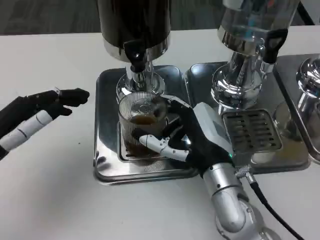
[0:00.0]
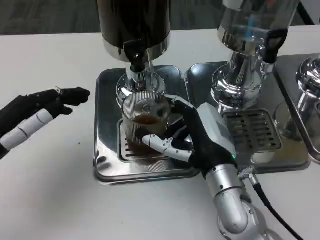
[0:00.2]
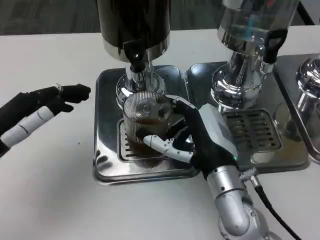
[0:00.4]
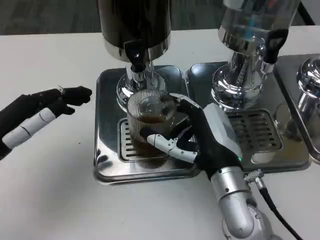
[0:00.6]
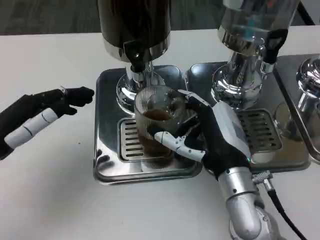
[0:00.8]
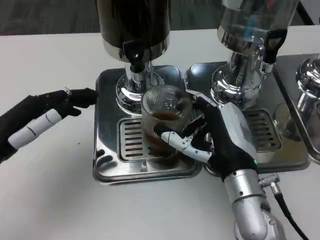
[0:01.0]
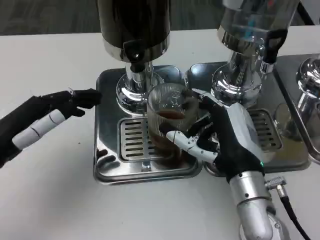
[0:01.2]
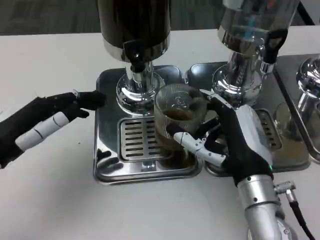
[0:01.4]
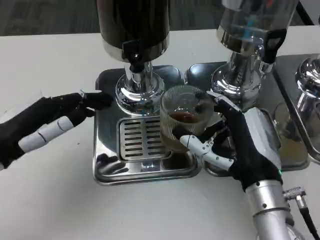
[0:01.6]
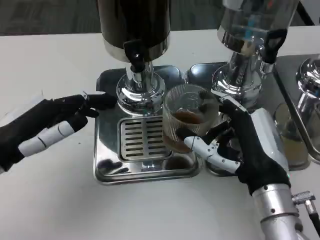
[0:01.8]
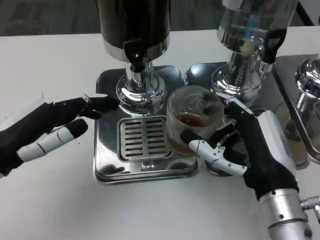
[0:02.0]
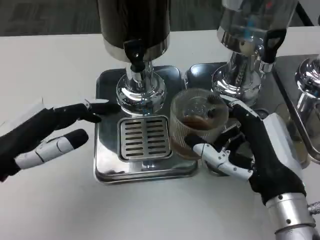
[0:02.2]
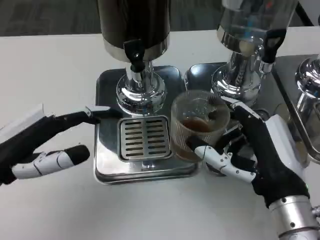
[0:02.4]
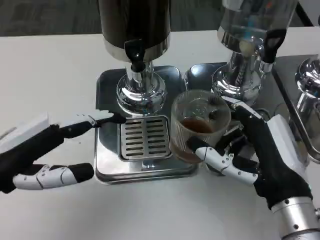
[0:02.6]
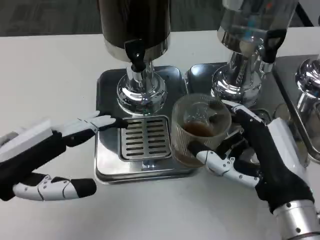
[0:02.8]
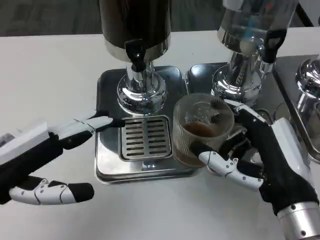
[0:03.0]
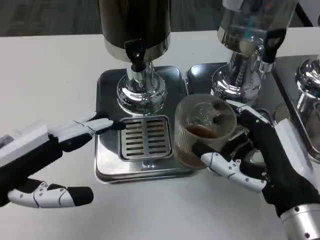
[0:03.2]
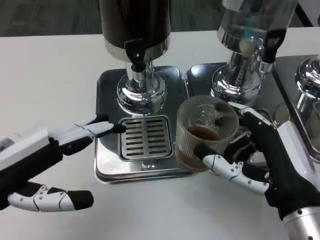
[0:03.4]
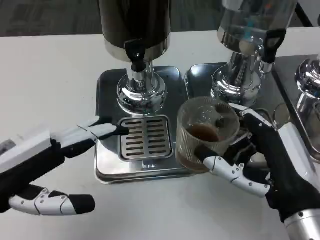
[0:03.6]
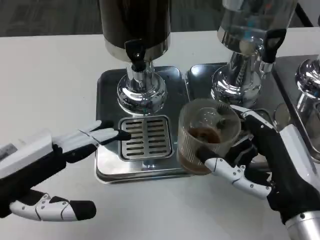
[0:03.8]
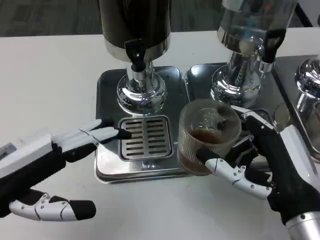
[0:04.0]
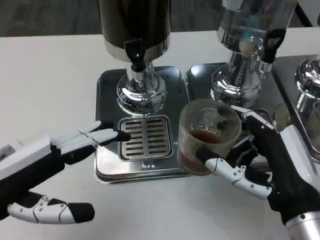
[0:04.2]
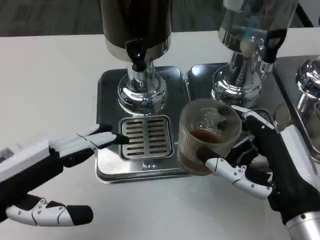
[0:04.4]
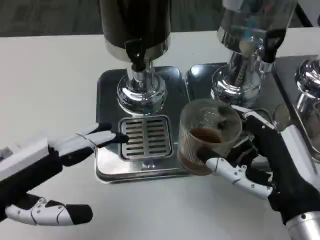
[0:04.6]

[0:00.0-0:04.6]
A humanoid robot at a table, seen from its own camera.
Task of the whole recording: Grasp the cup under the faucet to collect the drink, then remove the cup.
0.0 to 1.6 s: The right hand changes place by roughly 5 cm.
1.6 to 3.0 s: The right hand ends up some 5 cm from where it was; the left hand heads backward, covering about 5 cm.
3.0 to 4.6 s: The hands stay close to where they were, moving slightly.

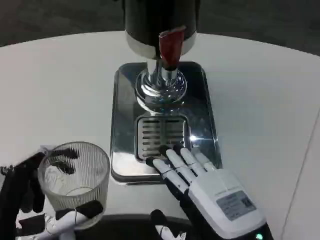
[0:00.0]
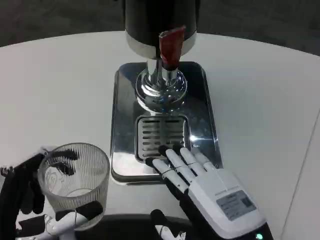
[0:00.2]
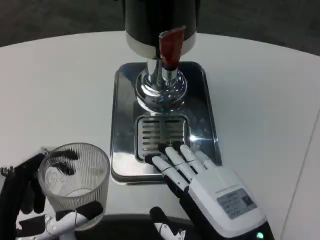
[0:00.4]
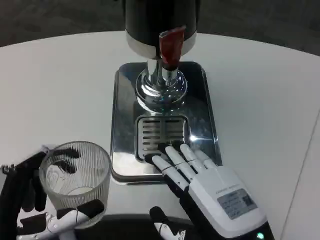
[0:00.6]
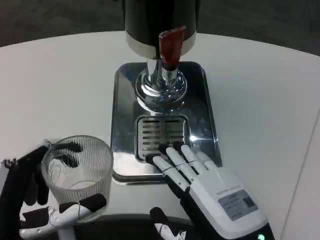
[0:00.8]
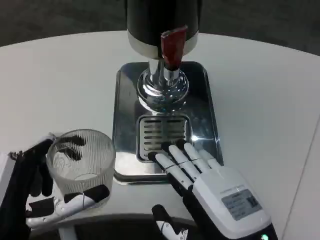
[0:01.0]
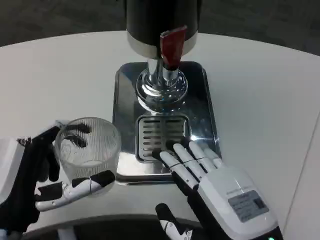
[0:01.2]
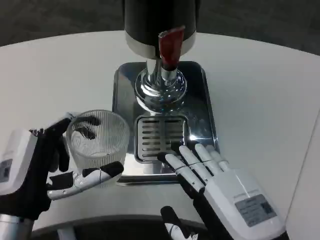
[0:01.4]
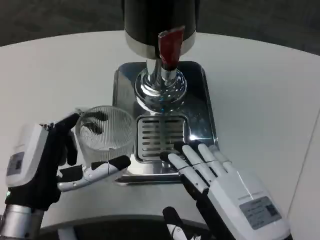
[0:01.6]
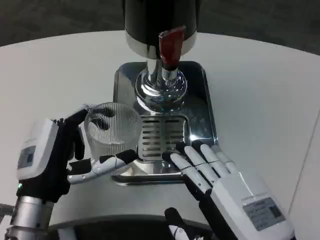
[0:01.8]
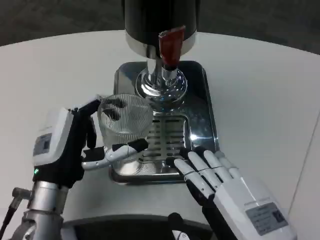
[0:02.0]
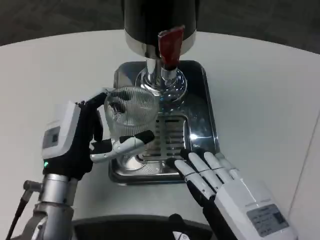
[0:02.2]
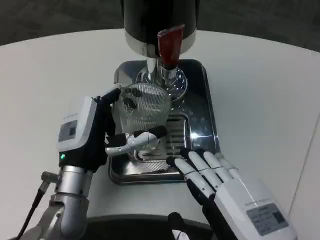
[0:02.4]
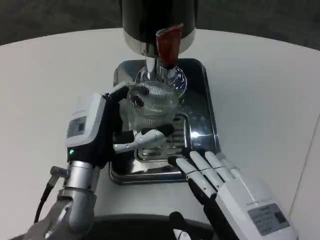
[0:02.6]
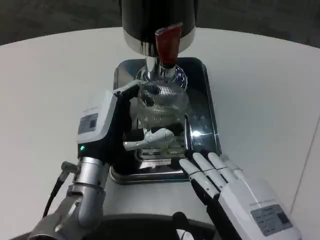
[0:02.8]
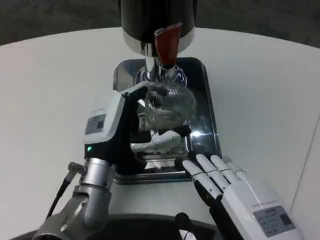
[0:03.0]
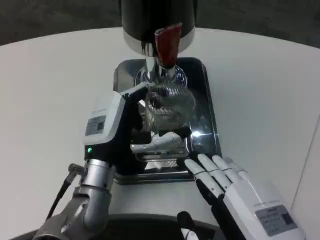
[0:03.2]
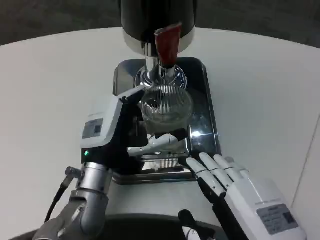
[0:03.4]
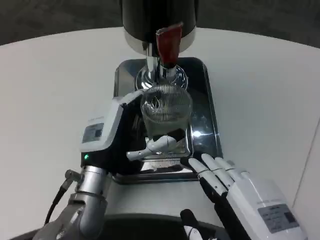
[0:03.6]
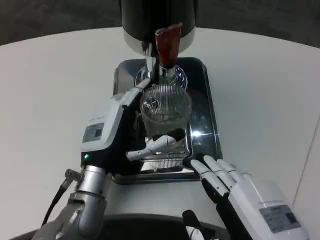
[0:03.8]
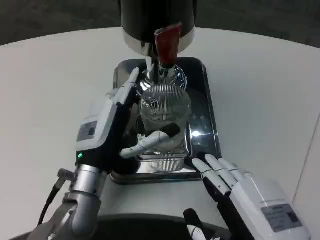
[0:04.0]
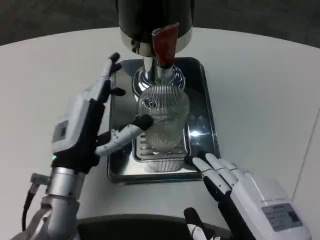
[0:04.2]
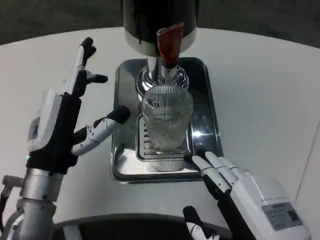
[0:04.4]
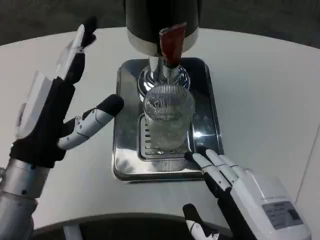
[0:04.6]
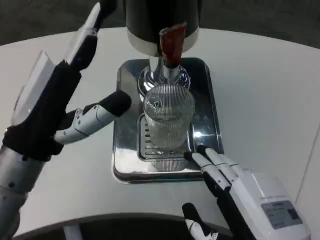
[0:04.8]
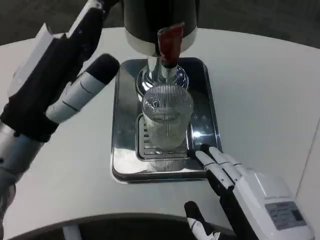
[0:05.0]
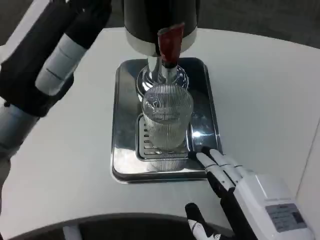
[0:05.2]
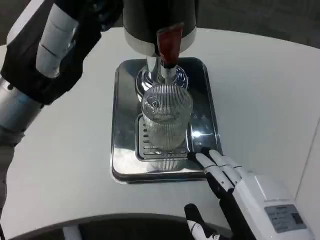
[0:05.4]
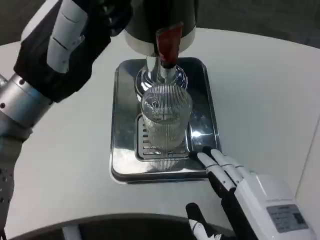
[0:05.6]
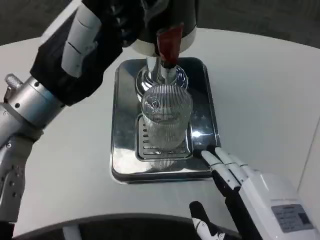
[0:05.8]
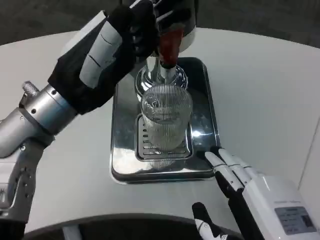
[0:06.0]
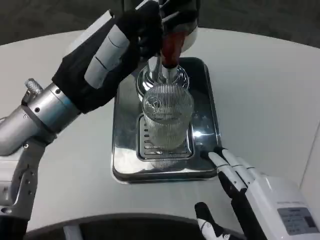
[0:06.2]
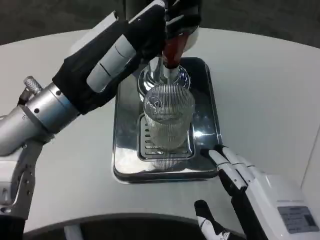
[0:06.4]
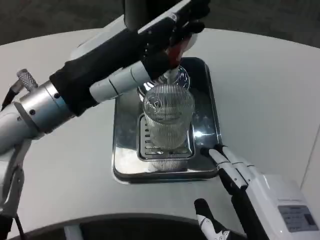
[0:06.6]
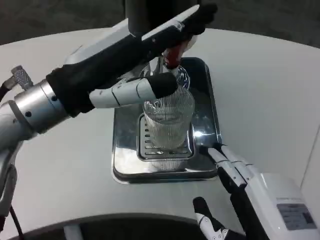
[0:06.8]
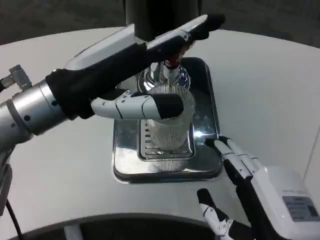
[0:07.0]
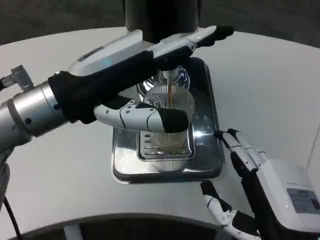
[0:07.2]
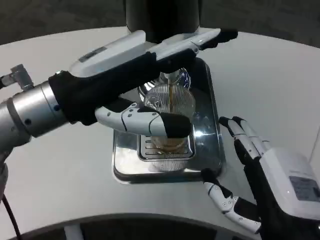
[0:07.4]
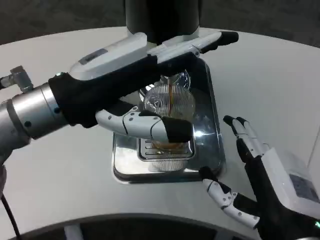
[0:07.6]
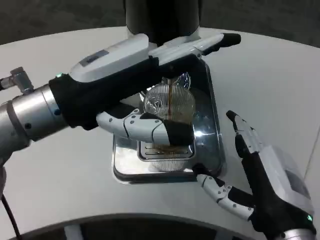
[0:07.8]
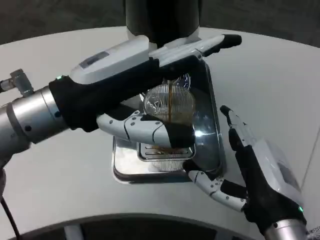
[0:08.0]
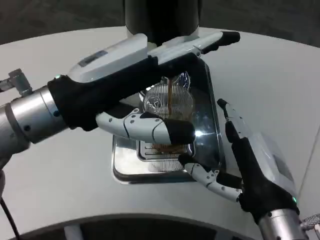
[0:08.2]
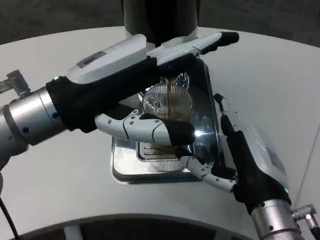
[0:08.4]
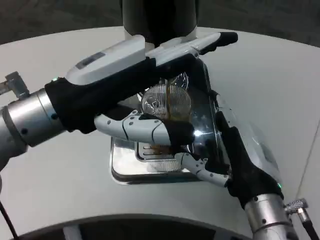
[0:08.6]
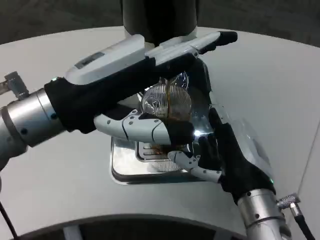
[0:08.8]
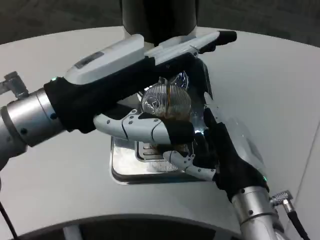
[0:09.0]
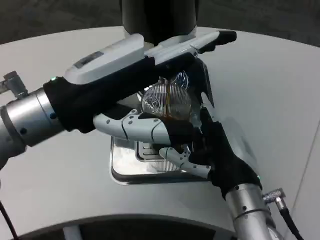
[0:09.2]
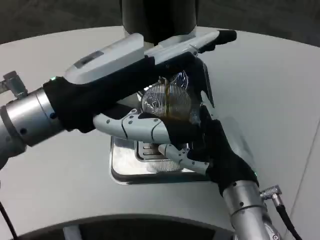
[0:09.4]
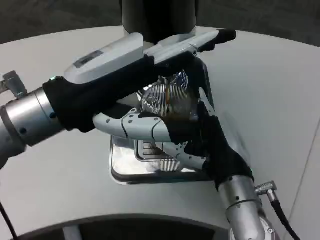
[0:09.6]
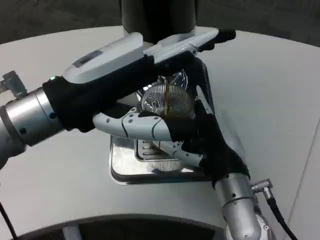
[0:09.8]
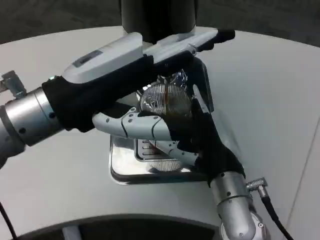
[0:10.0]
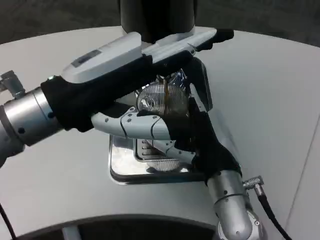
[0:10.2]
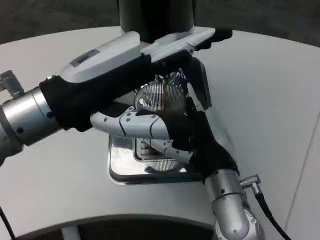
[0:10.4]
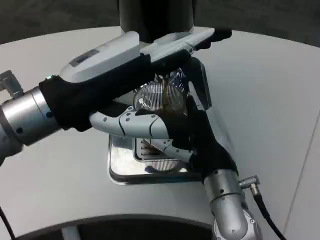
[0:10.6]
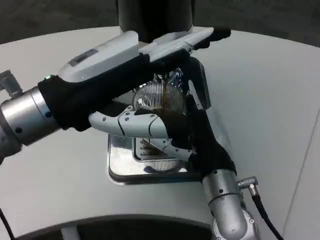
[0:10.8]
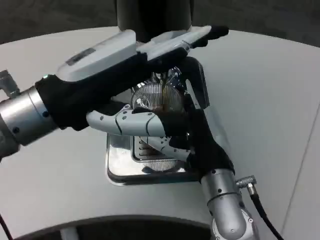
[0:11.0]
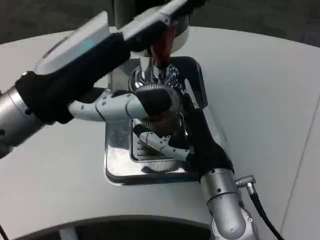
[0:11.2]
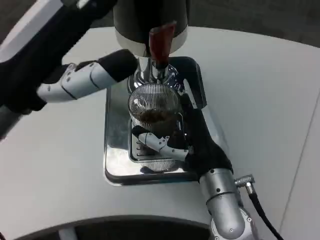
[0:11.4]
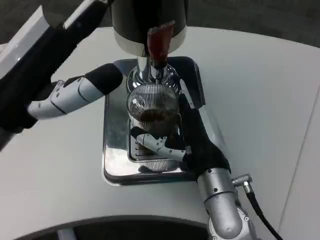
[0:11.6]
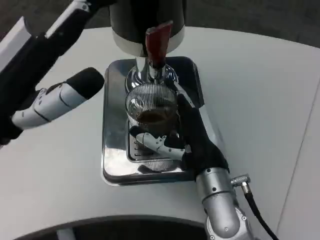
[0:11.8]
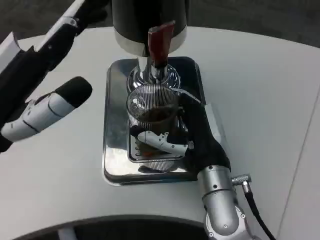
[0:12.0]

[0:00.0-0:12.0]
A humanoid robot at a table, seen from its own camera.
Task of the whole recording: Grasp the cup under the faucet to collect the drink, then remove the cup.
0.0 to 1.6 s: The left hand heads forward, covering some 10 cm.
1.6 to 3.0 s: The left hand is displaced to the right and forward by about 10 cm.
3.0 to 4.4 s: The left hand shifts about 5 cm to the left.
4.4 to 6.0 s: The left hand shifts about 10 cm upward.
7.6 to 9.0 s: The right hand travels forward by some 5 cm.
10.4 to 12.0 s: The left hand goes roughly 5 cm to the left.

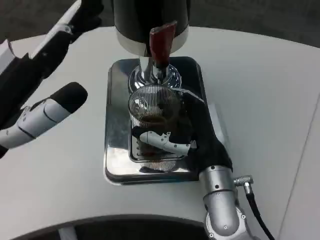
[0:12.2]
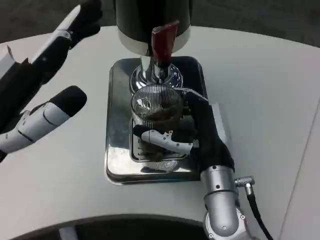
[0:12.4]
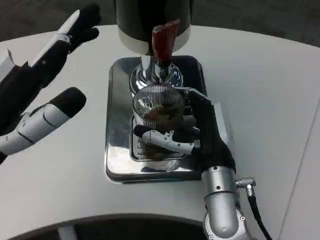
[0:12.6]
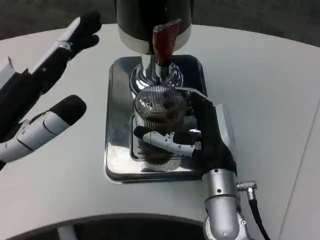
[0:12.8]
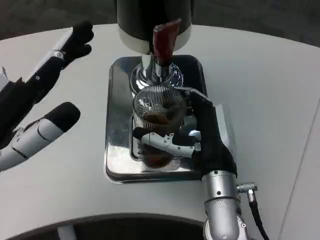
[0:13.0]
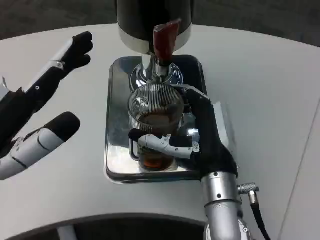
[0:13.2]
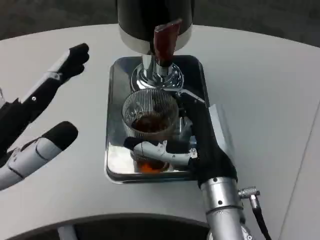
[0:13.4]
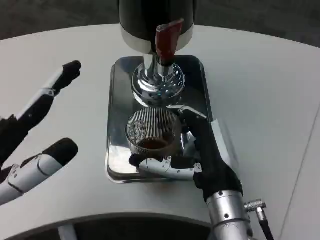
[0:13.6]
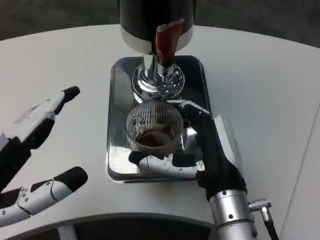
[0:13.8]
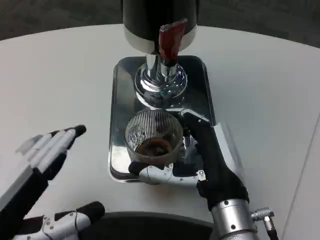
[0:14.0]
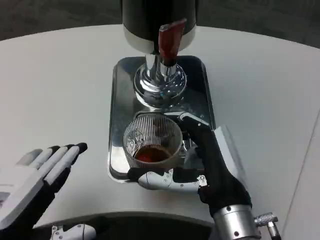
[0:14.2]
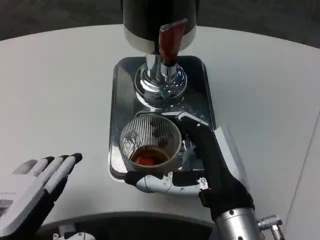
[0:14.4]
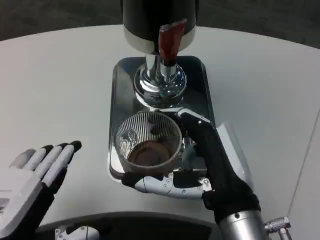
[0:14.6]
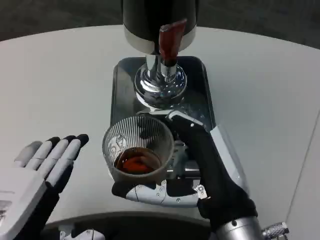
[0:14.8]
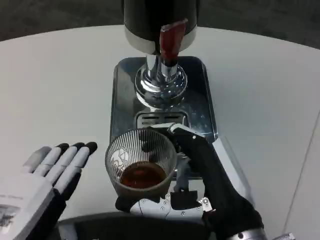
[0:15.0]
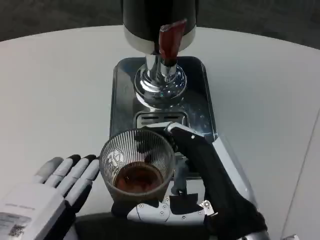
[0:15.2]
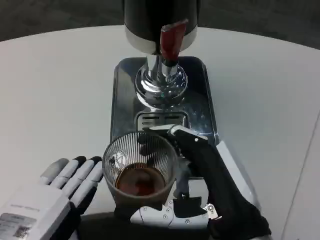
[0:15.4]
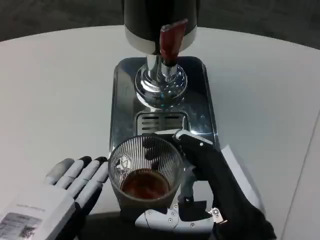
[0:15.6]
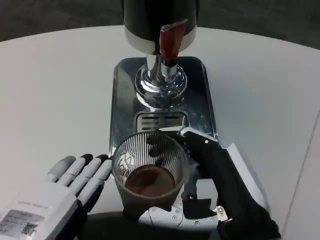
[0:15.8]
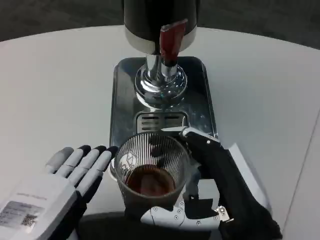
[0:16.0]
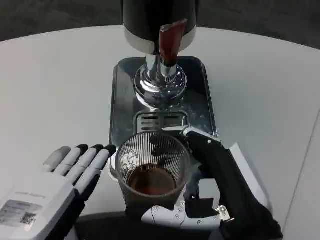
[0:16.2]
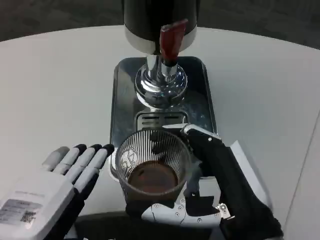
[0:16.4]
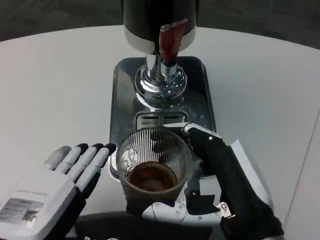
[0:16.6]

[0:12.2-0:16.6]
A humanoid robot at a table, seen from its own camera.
Task of the whole recording: Grasp the cup under the faucet to collect the drink, then remove the cup.
12.2 to 13.6 s: The left hand goes approximately 5 cm backward.
13.6 to 15.2 s: The left hand is displaced downward by roughly 5 cm. Meanwhile the right hand goes some 10 cm backward.
15.2 to 16.6 s: There are only small adjustments of the hands.

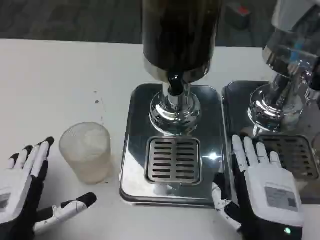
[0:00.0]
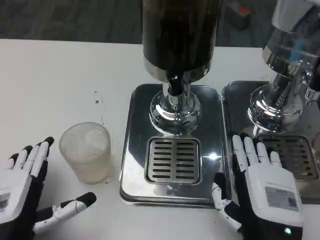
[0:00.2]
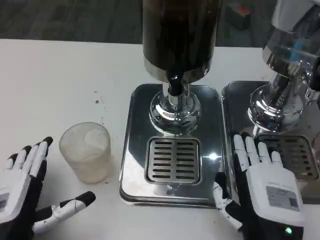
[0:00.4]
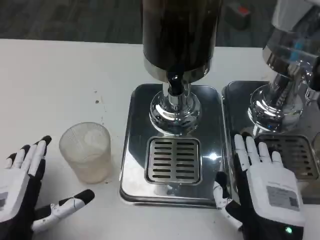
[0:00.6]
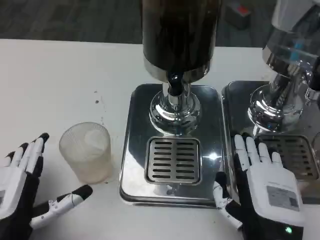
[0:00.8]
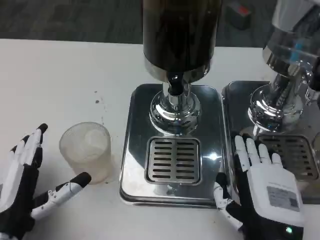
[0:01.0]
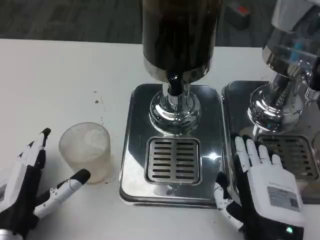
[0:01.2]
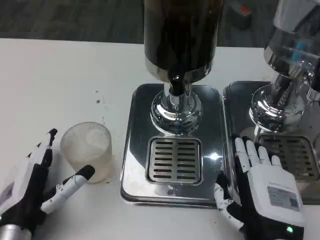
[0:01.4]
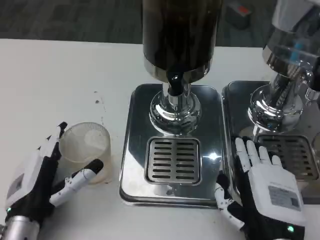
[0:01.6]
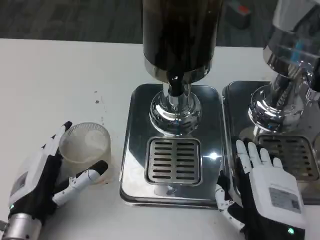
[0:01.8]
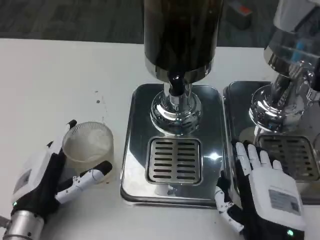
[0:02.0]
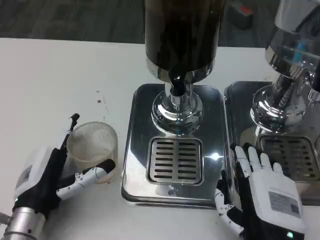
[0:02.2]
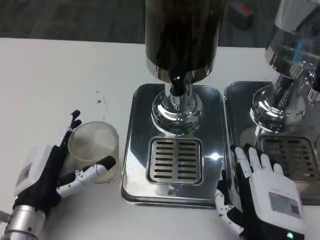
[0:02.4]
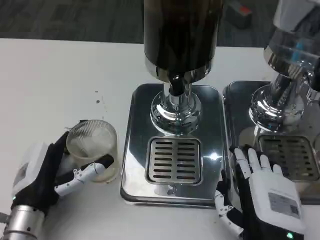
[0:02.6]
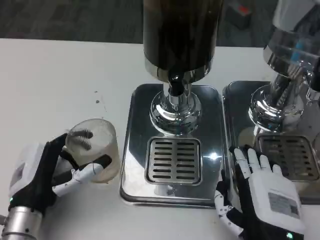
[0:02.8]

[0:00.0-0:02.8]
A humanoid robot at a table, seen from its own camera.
Task of the whole recording: Grasp the cup under the faucet to collect the drink, then remove the cup.
1.4 to 2.8 s: The hands make only small movements.
